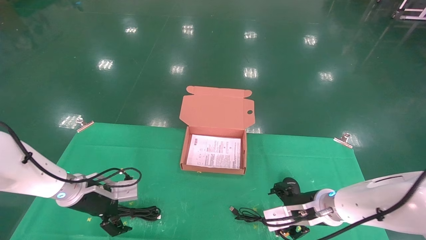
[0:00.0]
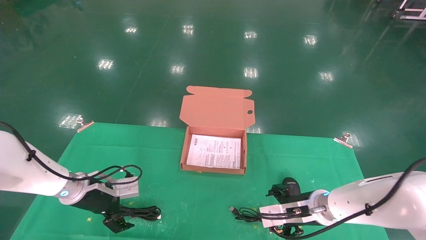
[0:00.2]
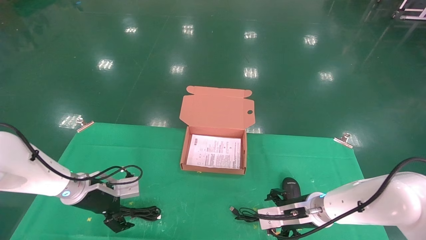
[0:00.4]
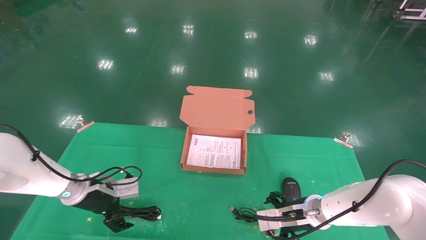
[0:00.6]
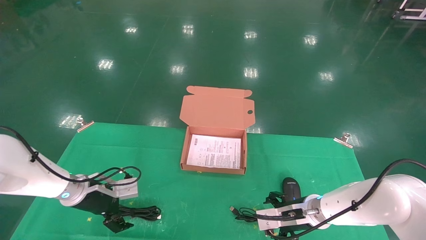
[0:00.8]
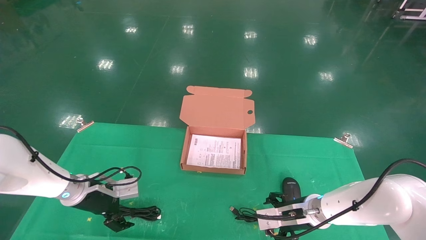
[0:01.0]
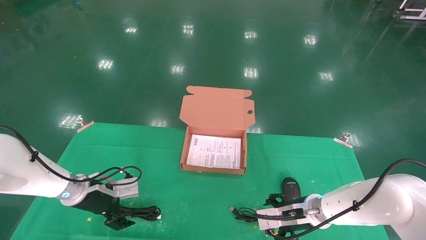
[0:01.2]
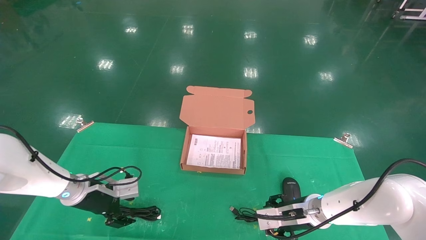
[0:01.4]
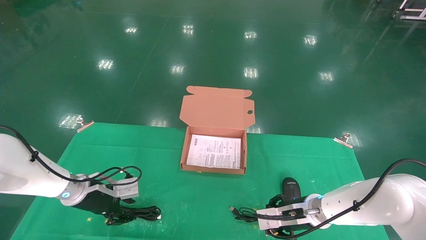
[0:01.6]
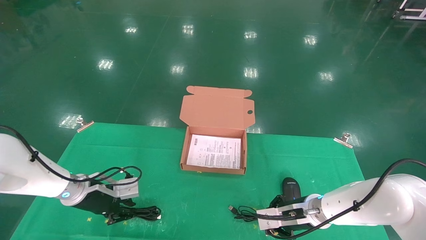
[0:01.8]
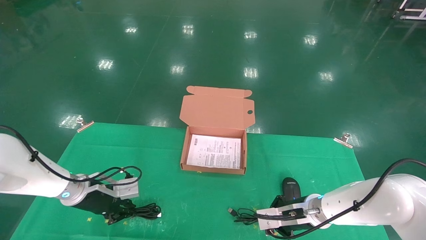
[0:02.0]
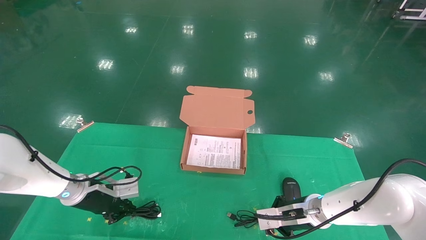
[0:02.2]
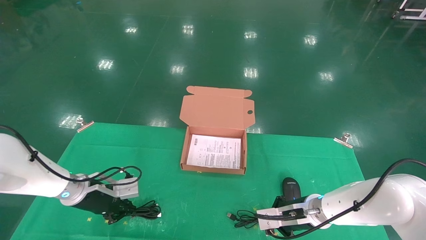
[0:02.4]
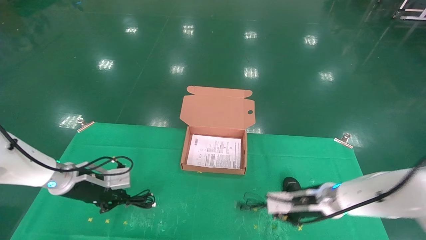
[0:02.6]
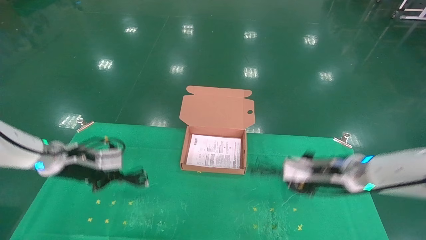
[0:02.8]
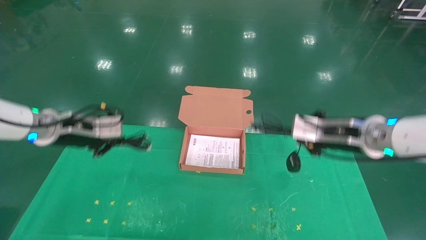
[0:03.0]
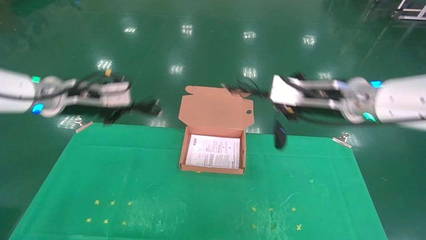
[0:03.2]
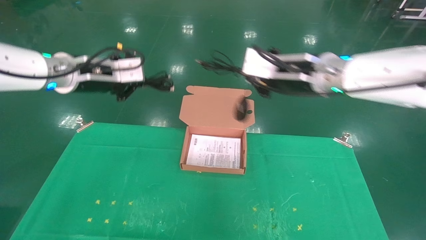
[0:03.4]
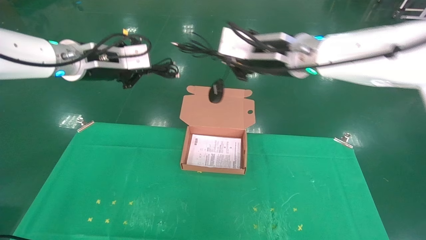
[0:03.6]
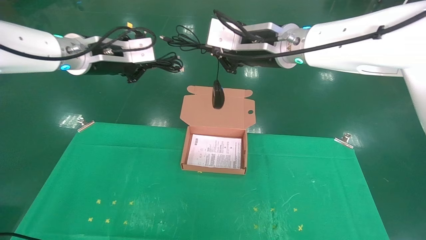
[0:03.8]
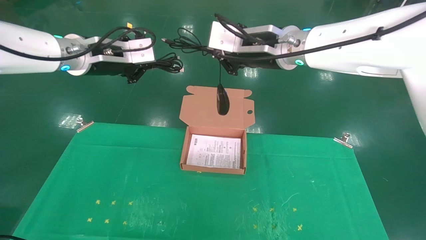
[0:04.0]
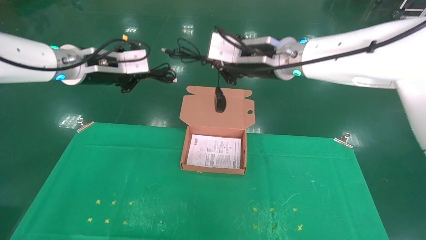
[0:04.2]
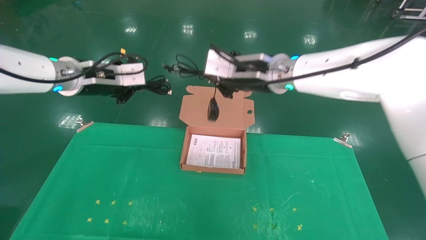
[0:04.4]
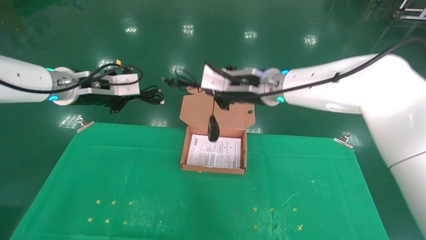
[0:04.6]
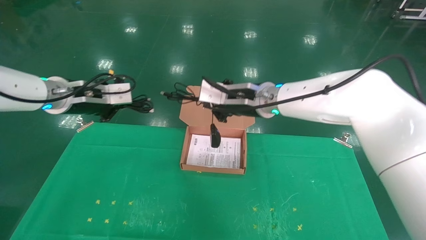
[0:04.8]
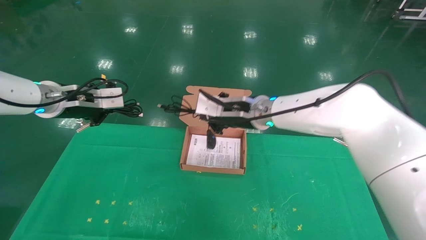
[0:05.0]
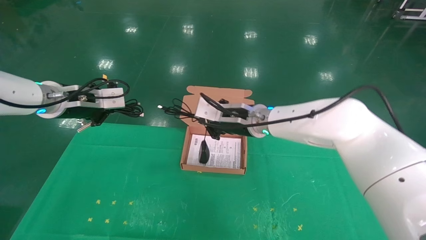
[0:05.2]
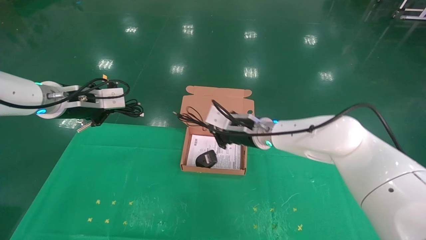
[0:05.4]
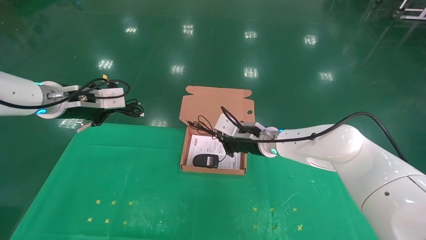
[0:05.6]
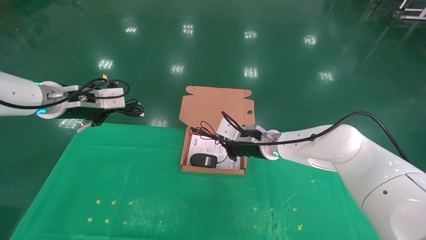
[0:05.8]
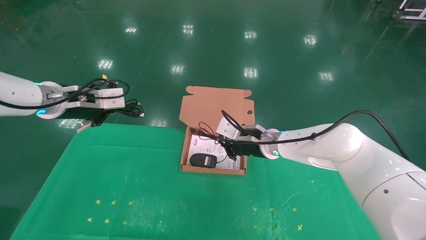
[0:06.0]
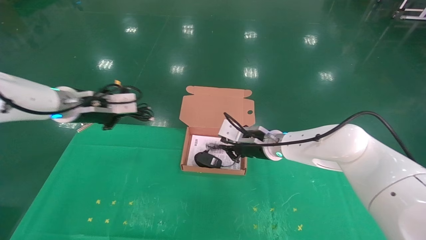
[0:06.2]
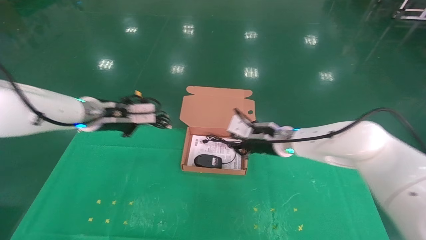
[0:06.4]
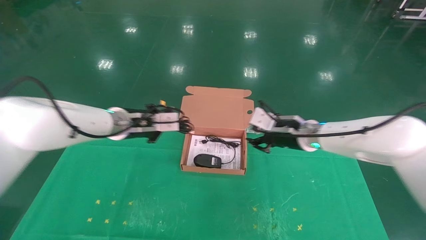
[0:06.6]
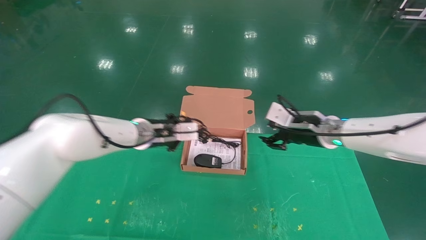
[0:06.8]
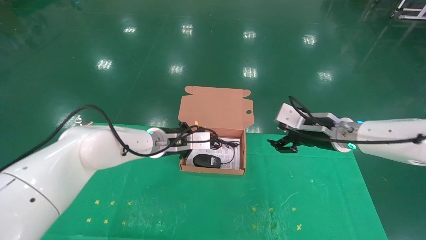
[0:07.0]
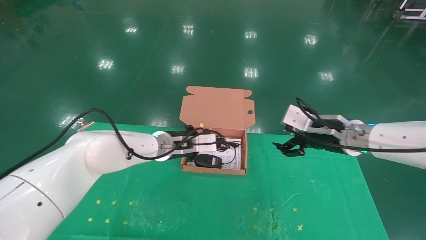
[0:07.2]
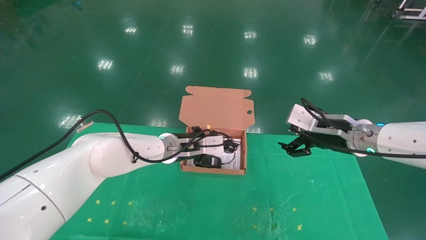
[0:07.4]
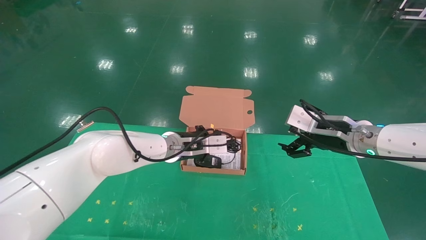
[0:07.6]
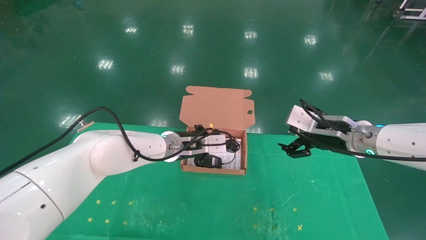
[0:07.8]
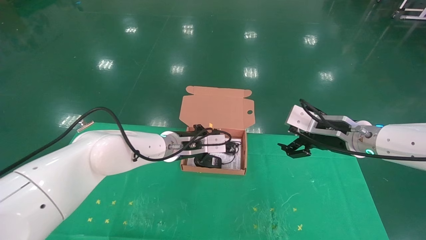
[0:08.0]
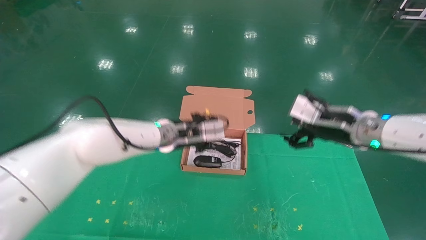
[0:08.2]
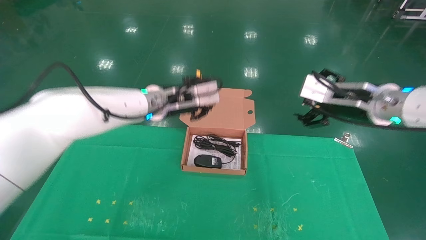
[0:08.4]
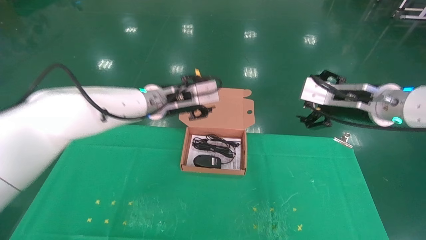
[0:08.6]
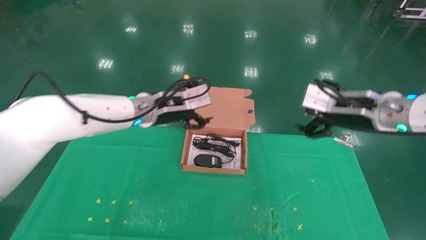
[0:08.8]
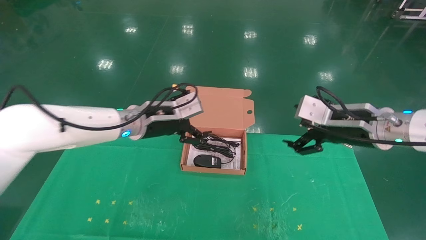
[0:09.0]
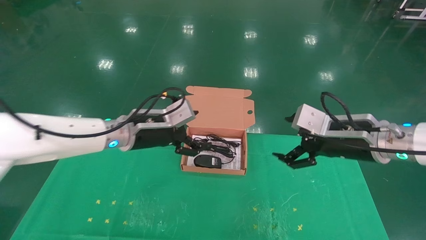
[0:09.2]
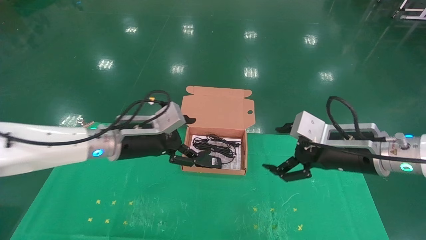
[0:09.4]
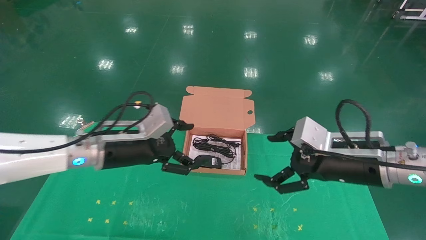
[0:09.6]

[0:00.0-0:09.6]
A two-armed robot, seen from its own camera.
Task of the whole recording: grasp data cable left put into box grasp mouse right put into box.
Step, 0:00.0 to 0:02.8: Grab and pick up both the mouse and power cord from the accessory packaging area at the same time.
Step, 0:03.0 to 0:08.0: Place the mouse and power cord into the box.
0:00.0 to 0:01.6: The left gripper closes. The right gripper closes its fingers.
0:01.6 to 0:03.2: Both grippers travel together upward, approximately 25 cm. The right gripper closes its fingers; the left gripper closes its fingers.
0:03.2 to 0:04.8: The right gripper is displaced to the left and forward by approximately 15 cm.
0:04.8 to 0:06.4: The left gripper travels to the right and downward by roughly 10 cm. Meanwhile the right gripper heads downward and to the right, covering roughly 15 cm.
0:06.4 to 0:08.0: The right gripper goes approximately 15 cm to the right and backward, and opens its fingers; the left gripper shifts roughly 15 cm to the right and downward.
0:08.0 to 0:09.6: The left gripper heads to the left and backward, covering some 15 cm, and opens up, while the right gripper travels backward by about 10 cm.
